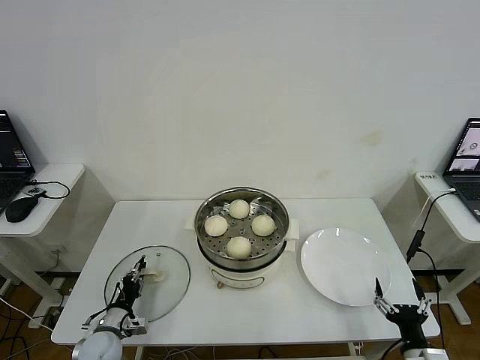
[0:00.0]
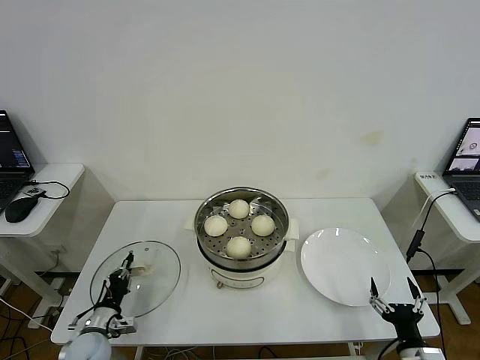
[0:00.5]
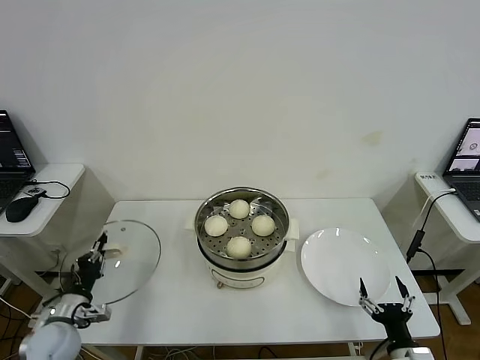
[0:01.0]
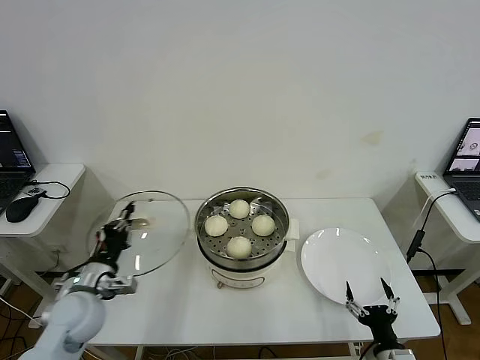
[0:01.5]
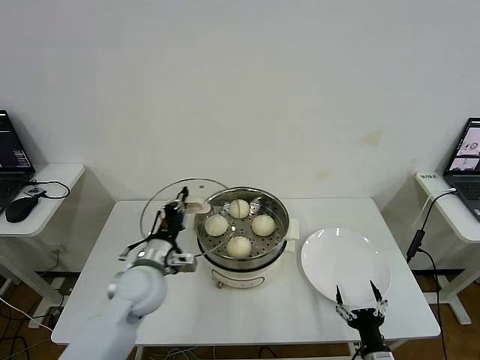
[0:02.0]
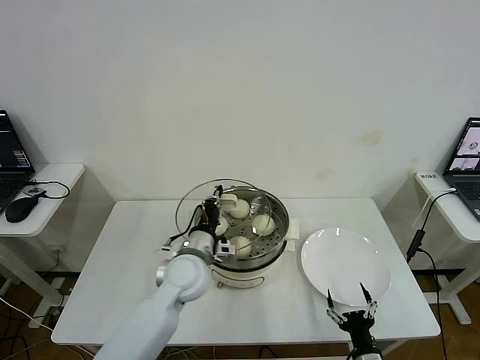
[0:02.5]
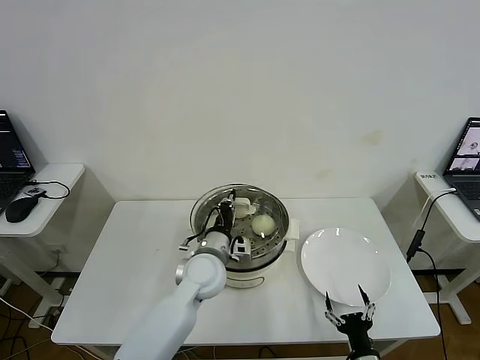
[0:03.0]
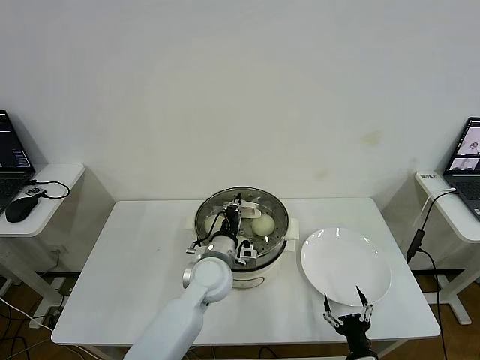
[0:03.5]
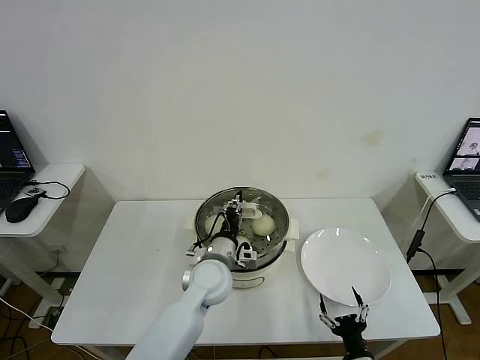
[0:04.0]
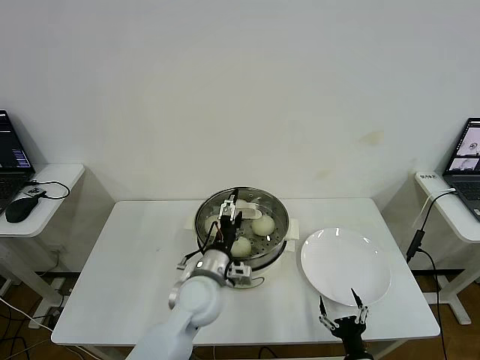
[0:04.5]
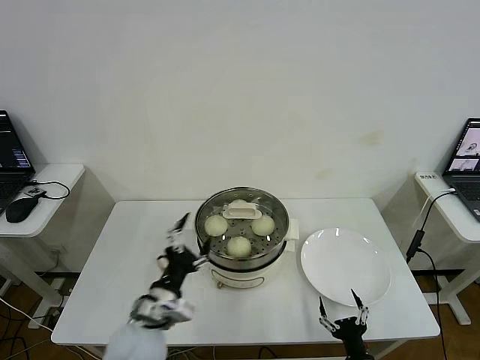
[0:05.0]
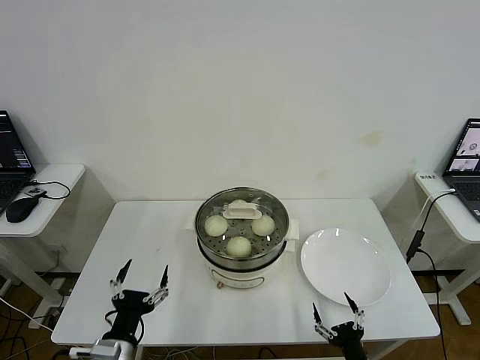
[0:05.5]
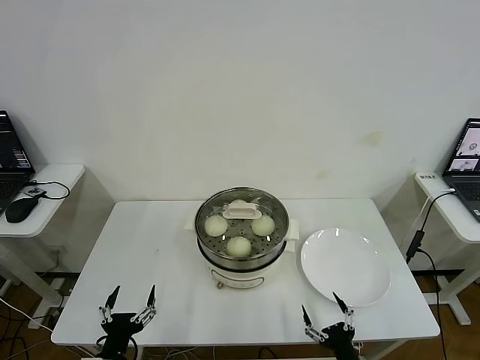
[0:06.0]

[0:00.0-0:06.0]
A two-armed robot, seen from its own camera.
Step, 0:00.5 to 0:04.0: Place the pot lid on the steamer with left gripper.
0:00.0 to 0:02.0: The left gripper goes approximately 25 cm upward and to the right, while the right gripper moves to the left, about 5 cm.
0:02.0 to 0:04.0: The left gripper travels to the right by about 15 cm.
0:04.0 to 0:06.0: The left gripper moves backward and to the left, some 30 cm, and opens its fingers.

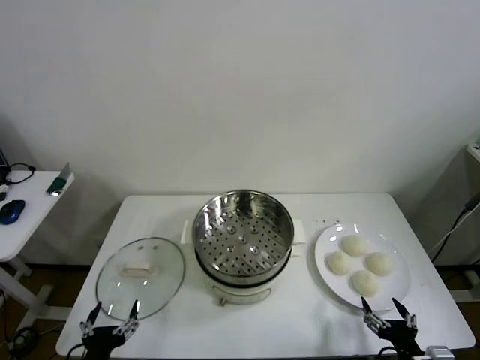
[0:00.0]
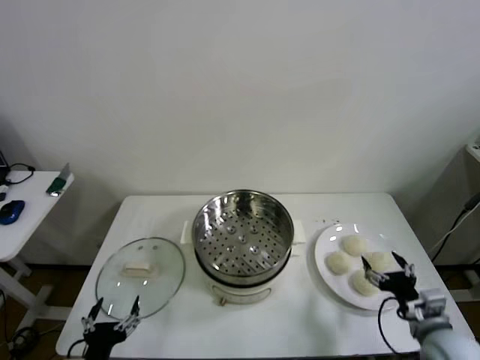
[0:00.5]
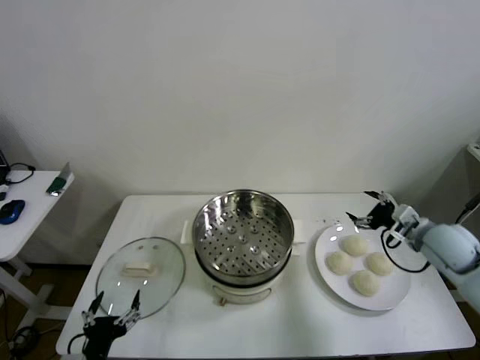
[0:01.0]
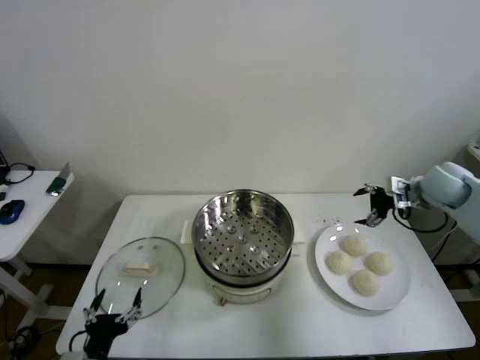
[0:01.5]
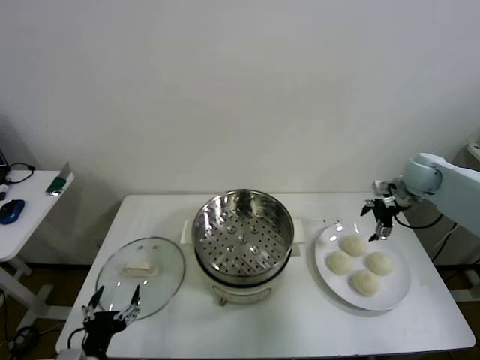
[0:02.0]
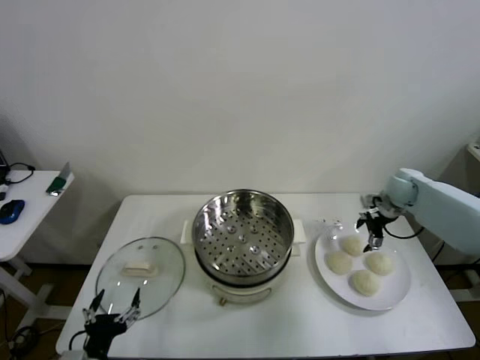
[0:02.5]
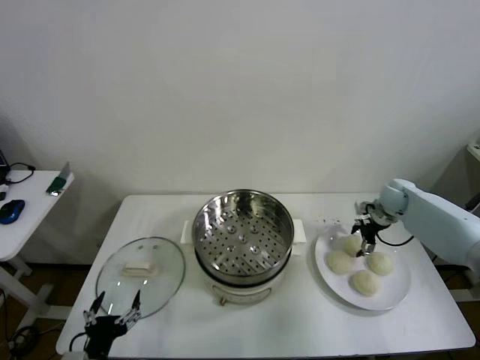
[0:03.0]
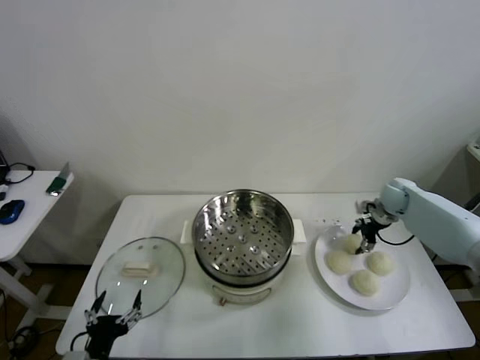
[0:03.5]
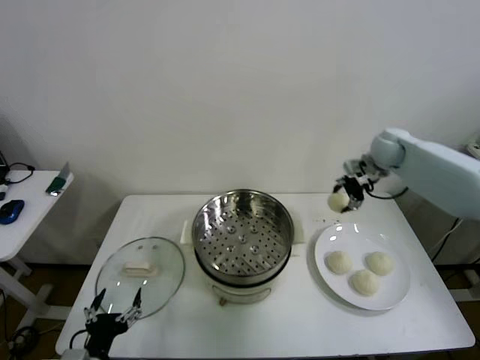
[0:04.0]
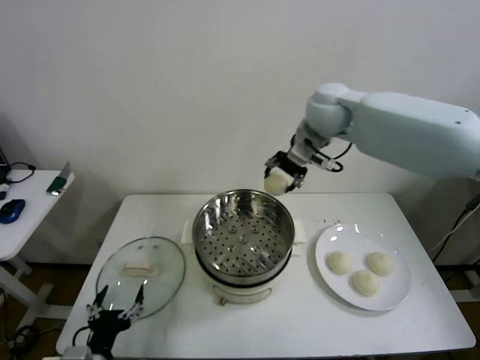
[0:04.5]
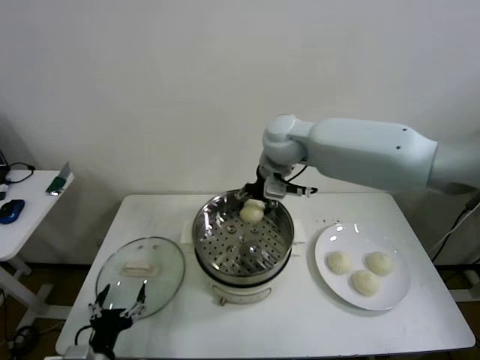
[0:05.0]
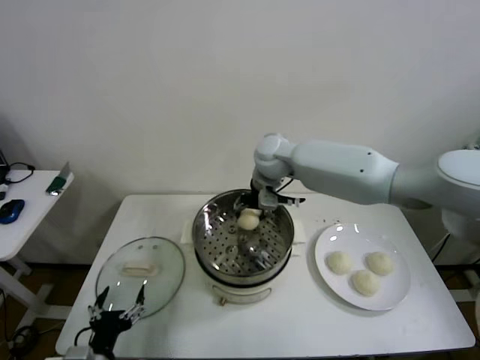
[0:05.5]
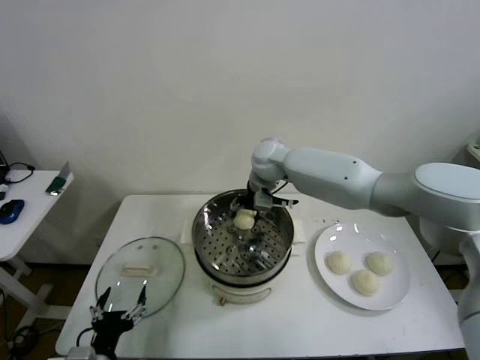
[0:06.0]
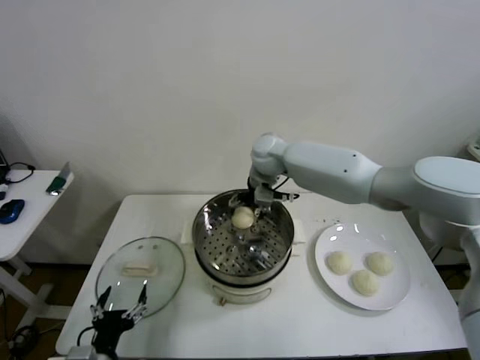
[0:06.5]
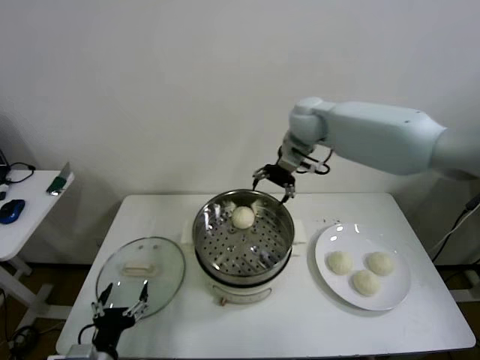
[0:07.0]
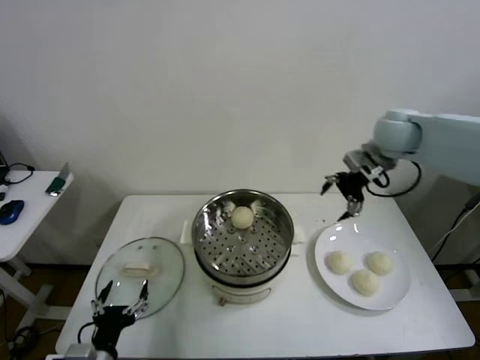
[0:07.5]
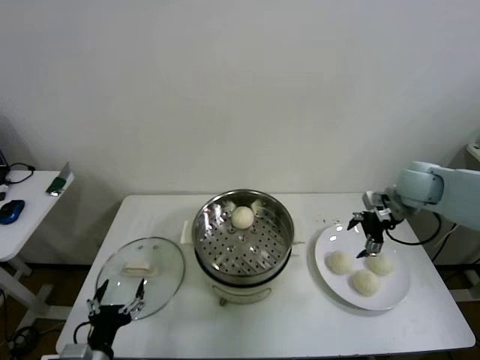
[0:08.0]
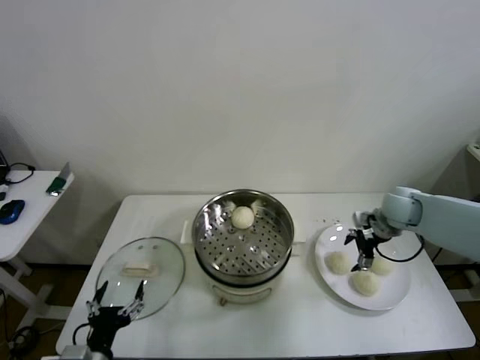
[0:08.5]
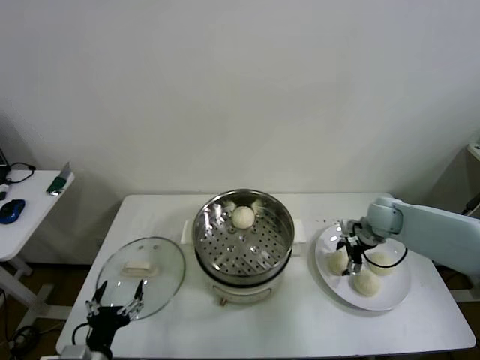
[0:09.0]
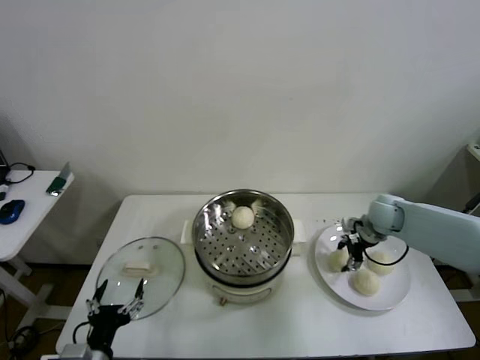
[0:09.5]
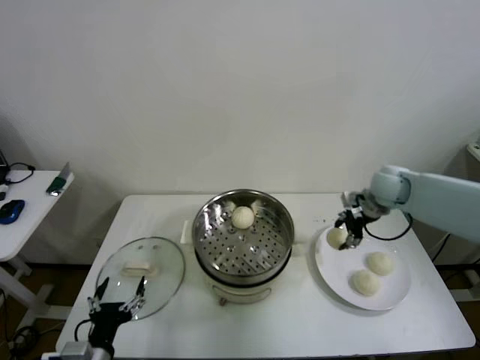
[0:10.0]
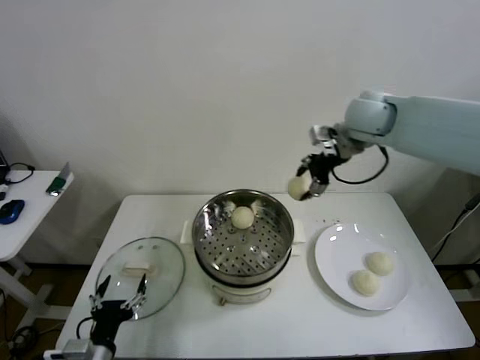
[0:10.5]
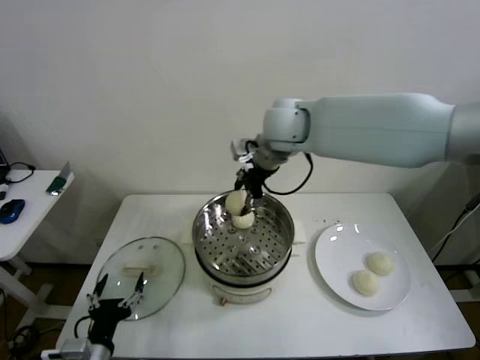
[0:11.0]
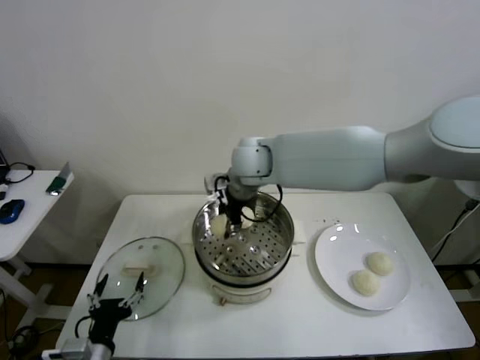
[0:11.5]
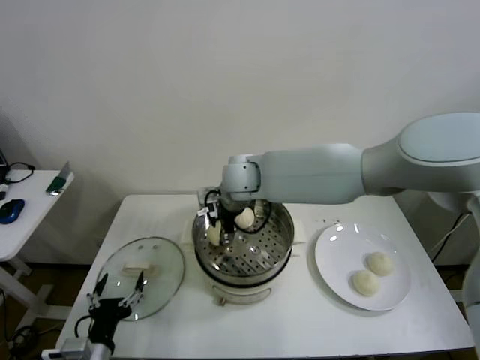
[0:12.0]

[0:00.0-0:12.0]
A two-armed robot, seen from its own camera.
Step, 0:00.0 to 0:03.0: Grasp the baozi in the plate with right gripper.
Step, 0:03.5 to 0:06.5: Place the baozi on the steamer with right gripper.
Step, 0:07.0 to 0:09.0: Grasp the baozi in the plate with right gripper.
0:02.0 to 0:04.0: The right gripper heads to the left, upward and forward, covering about 15 cm, and closes up.
0:04.0 to 0:06.0: The right gripper moves to the left, some 25 cm.
0:06.0 to 0:08.0: The right gripper travels to the right by approximately 30 cm, and opens up.
0:08.0 to 0:10.0: The right gripper travels downward and back again, roughly 10 cm each way, and closes.
0:10.0 to 0:12.0: The right gripper moves to the left, some 35 cm.

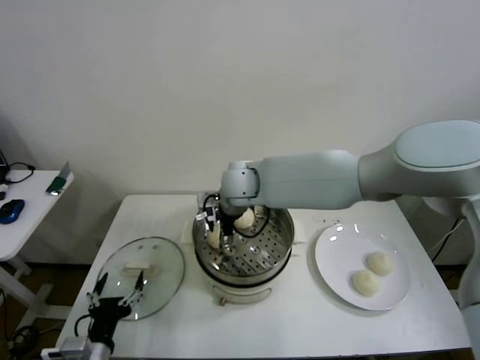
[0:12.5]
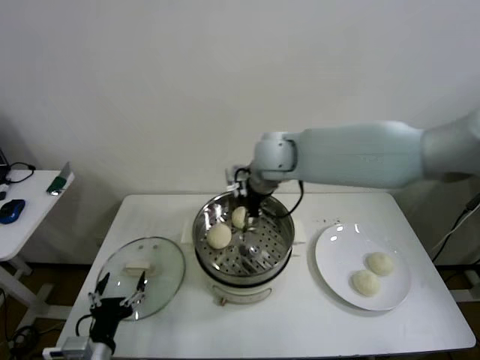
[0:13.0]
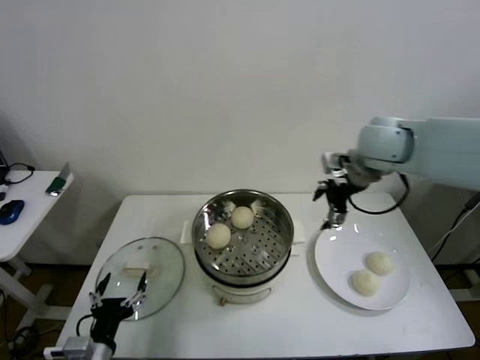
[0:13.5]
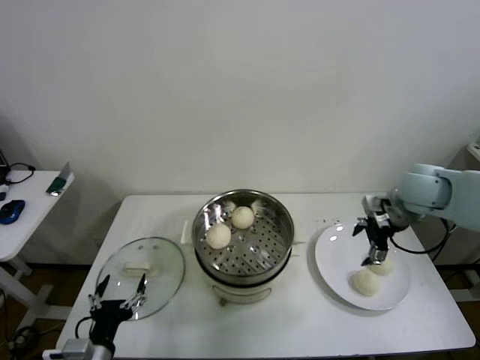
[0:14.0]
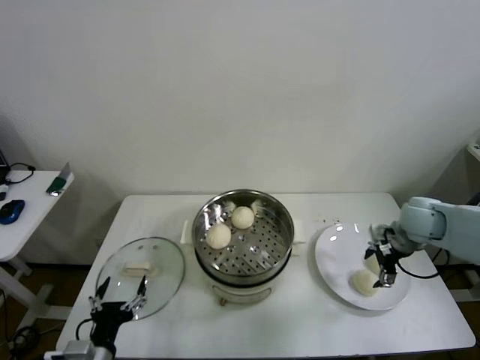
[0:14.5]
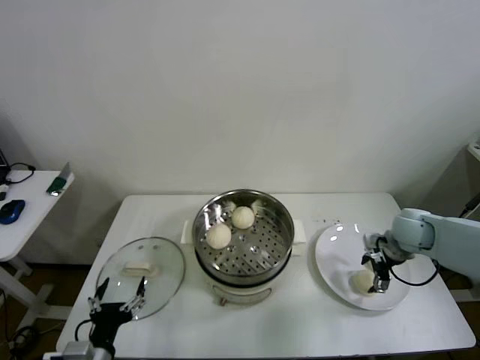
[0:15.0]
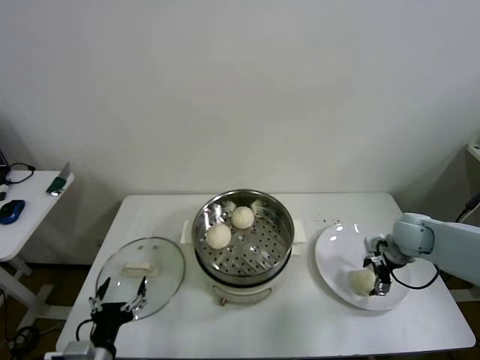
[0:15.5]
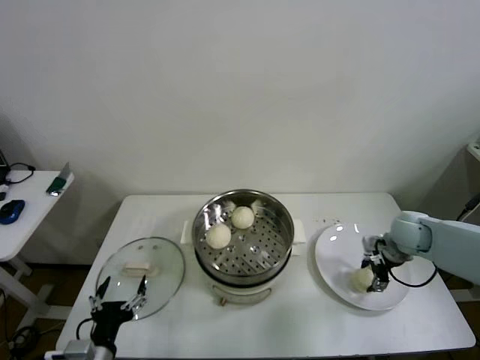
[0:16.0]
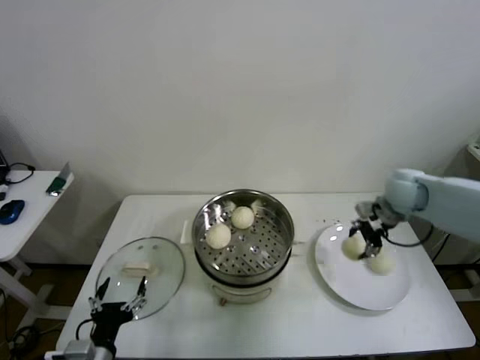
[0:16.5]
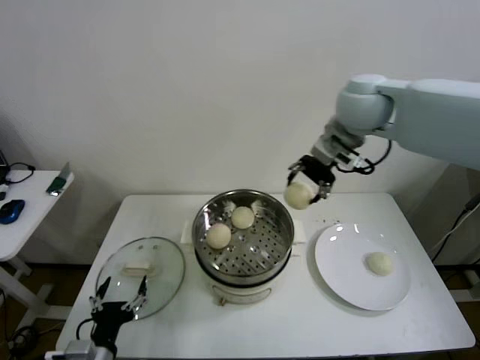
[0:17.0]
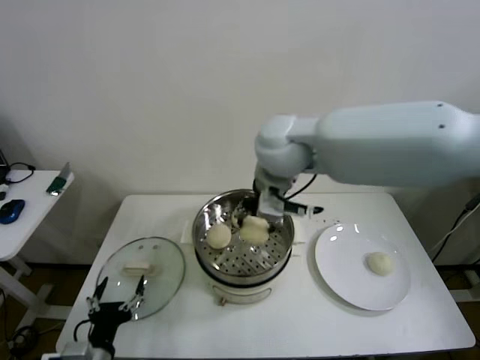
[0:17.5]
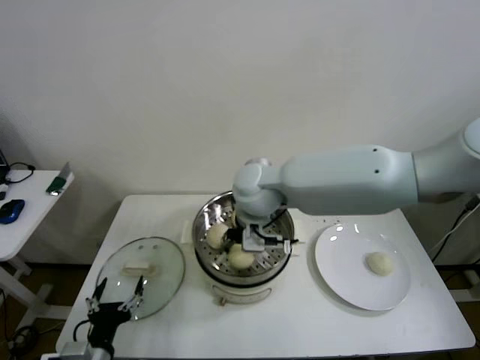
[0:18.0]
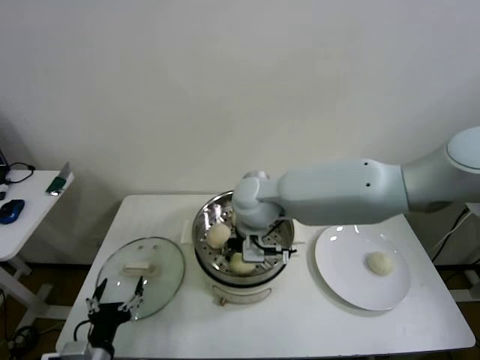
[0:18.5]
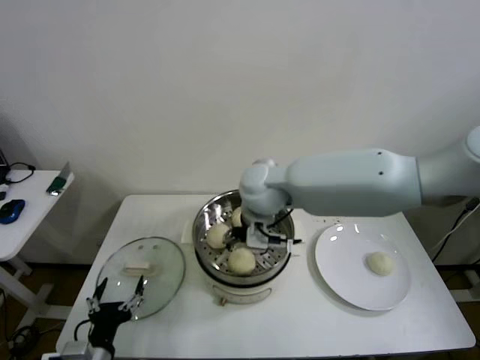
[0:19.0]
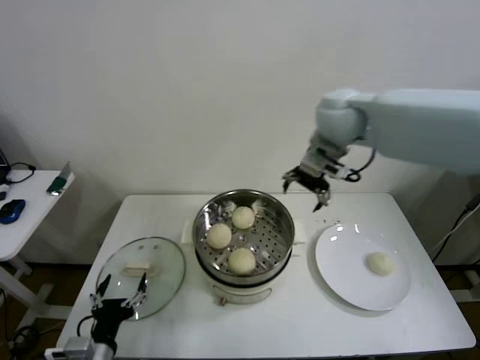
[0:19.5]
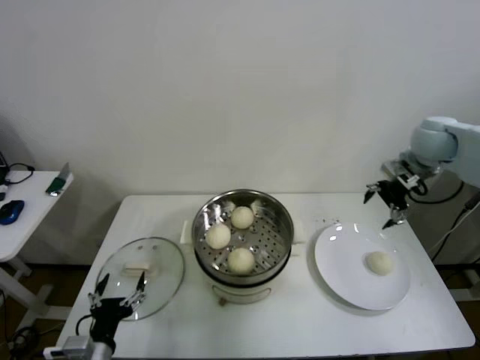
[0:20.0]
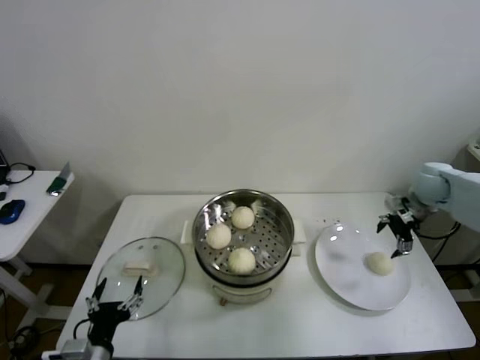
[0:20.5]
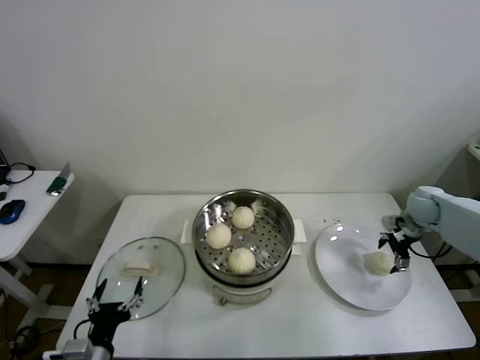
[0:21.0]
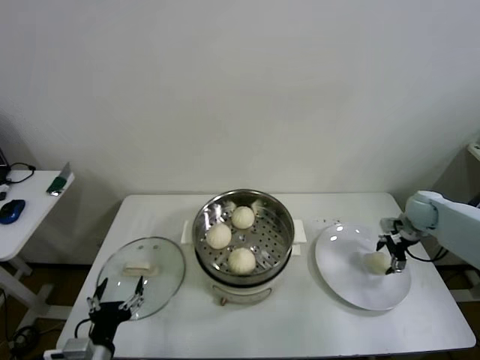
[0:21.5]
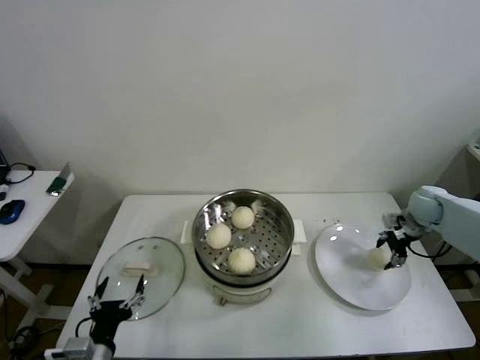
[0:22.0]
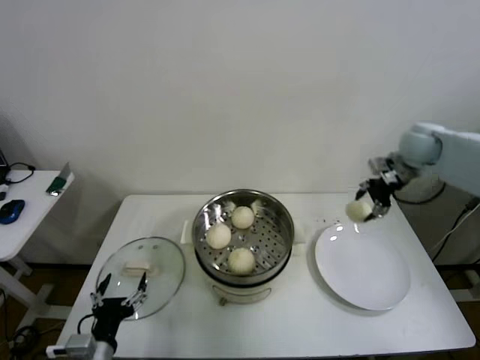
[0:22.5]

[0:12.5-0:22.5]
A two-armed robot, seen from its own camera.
Step, 0:13.0 to 0:15.5: Grasp the baozi in the plate with right gripper.
Step, 0:16.0 to 0:18.5: Place the baozi on the steamer with right gripper.
Step, 0:19.5 to 0:21.5: Grasp the baozi in the plate with right gripper.
0:12.5 to 0:14.5: The right gripper heads to the right, covering about 40 cm.
0:14.5 to 0:16.5: The right gripper heads upward and forward, covering some 10 cm, and closes.
0:16.5 to 0:18.5: The right gripper is displaced to the left by approximately 35 cm.
0:18.5 to 0:20.5: The right gripper moves to the right, roughly 40 cm, and opens up.
0:20.5 to 0:22.5: The right gripper heads upward and to the left, covering about 10 cm, and closes.
